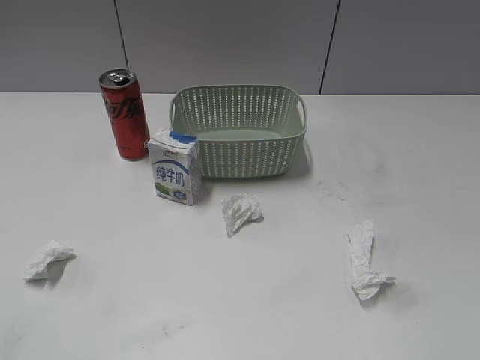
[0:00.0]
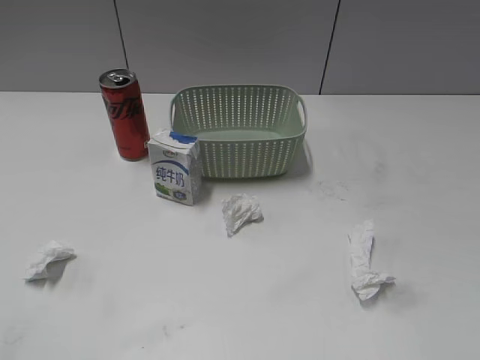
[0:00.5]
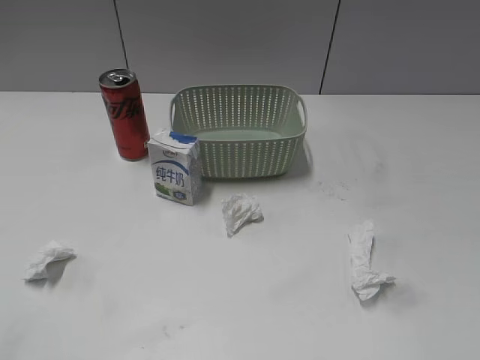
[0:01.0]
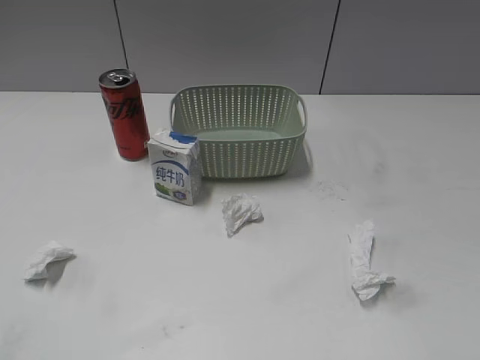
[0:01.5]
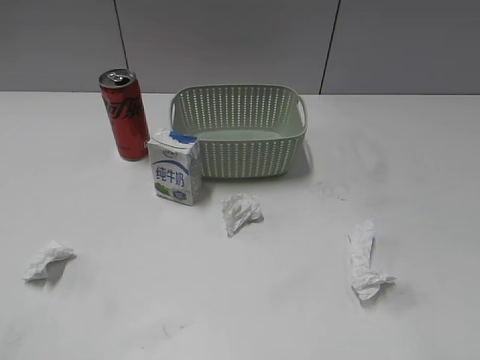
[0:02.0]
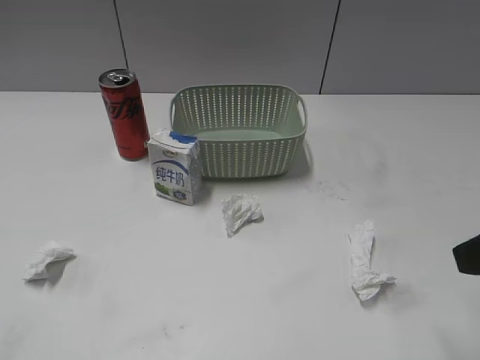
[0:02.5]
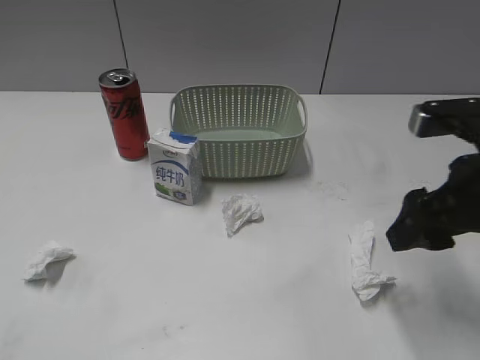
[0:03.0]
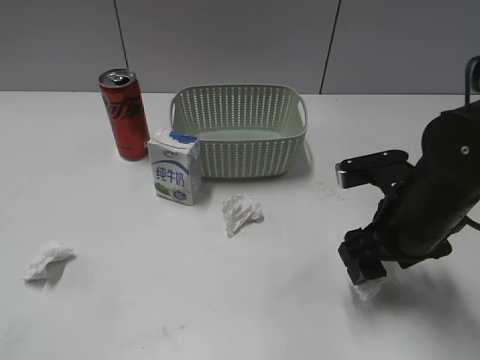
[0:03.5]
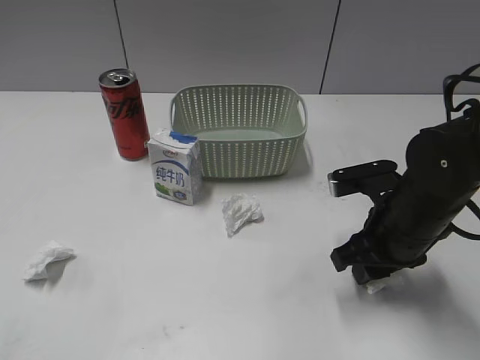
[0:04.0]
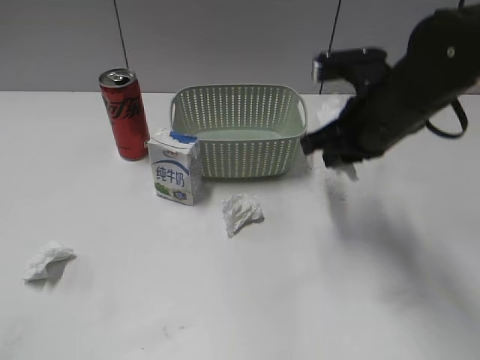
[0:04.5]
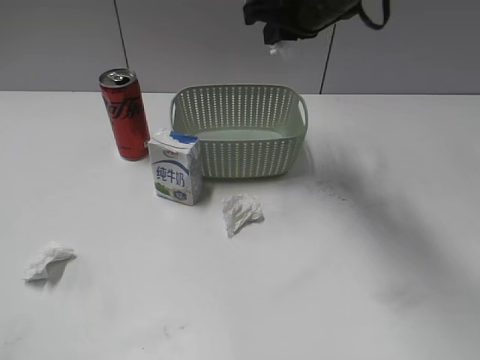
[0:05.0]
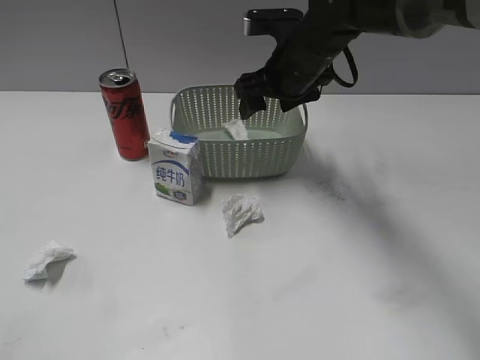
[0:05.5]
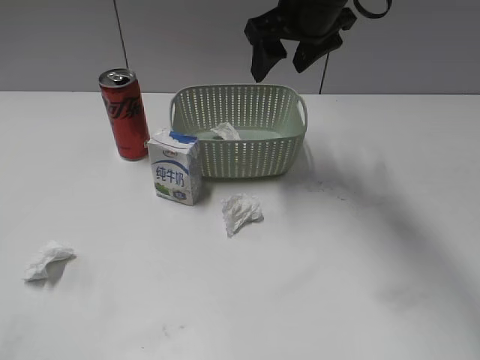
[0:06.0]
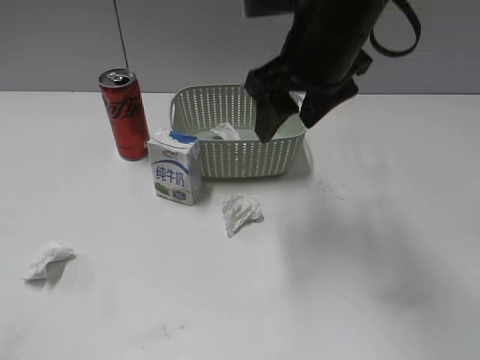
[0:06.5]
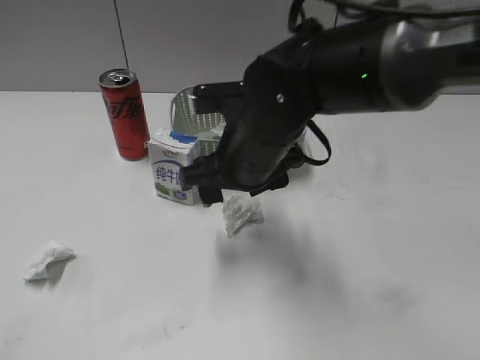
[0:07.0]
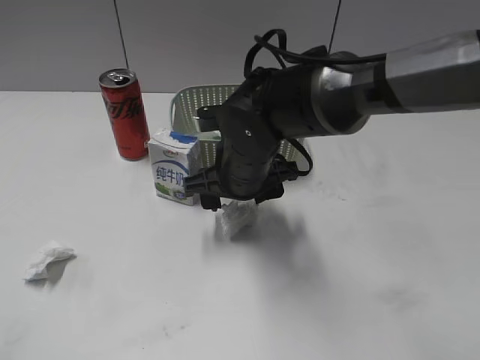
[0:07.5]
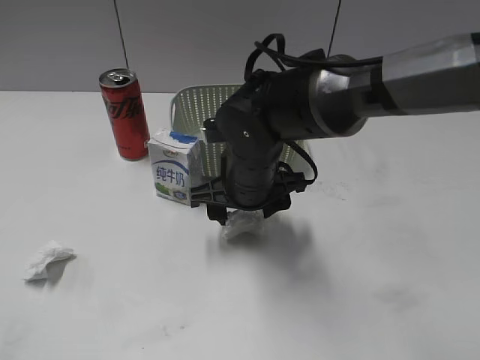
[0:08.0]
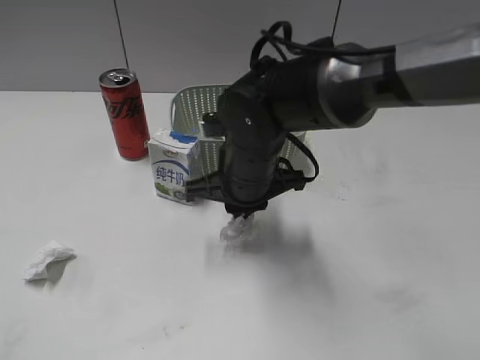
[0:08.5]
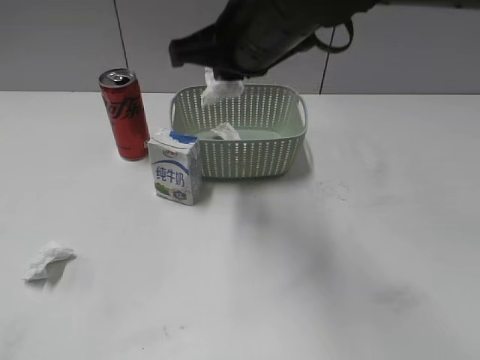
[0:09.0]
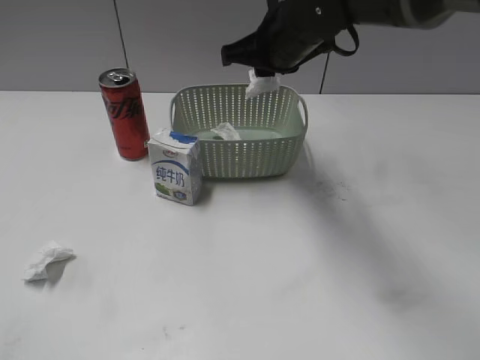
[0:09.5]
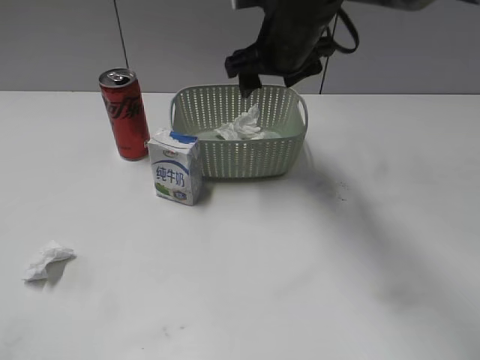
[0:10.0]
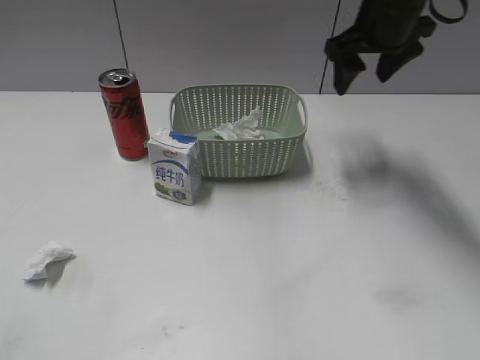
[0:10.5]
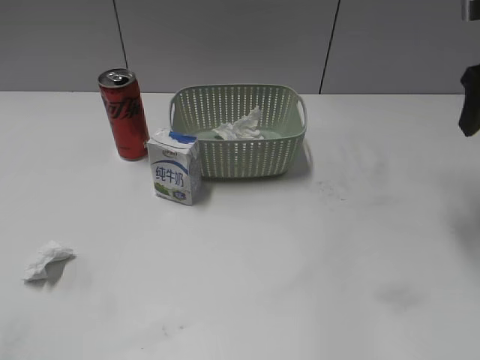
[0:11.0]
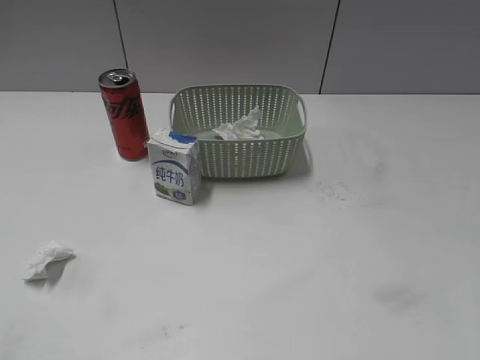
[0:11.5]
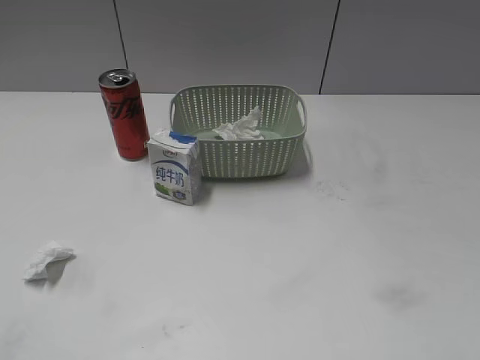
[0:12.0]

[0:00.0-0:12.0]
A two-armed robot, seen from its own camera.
Step, 0:02.5 to 0:04.0: Grasp the waste paper with right gripper.
Step, 0:04.5 to 0:05.5: Place the waste paper in the basket with right gripper.
Step, 0:06.0 to 0:08.0: Grasp the waste paper with right gripper.
Step, 0:08.5 to 0:10.0: Place the waste paper in the basket with right gripper.
0:02.0 to 0:04.0: The right gripper travels downward, forward and to the left by some 30 cm, and closes up.
0:04.0 to 0:06.0: The right gripper goes some 25 cm upward, forward and to the left, and opens.
0:06.0 to 0:08.0: The right gripper moves downward and backward, approximately 20 cm.
0:08.0 to 0:10.0: The right gripper heads upward, forward and to the right, covering about 20 cm, and closes, then opens again.
0:10.0 to 0:12.0: The right gripper heads backward and to the right, covering roughly 40 cm.

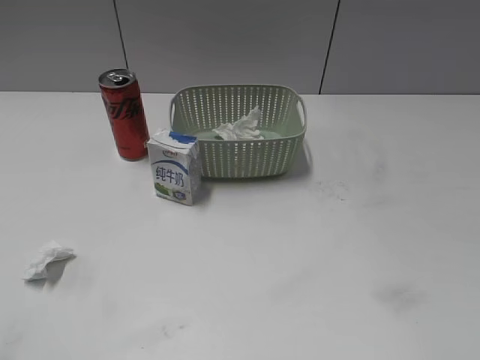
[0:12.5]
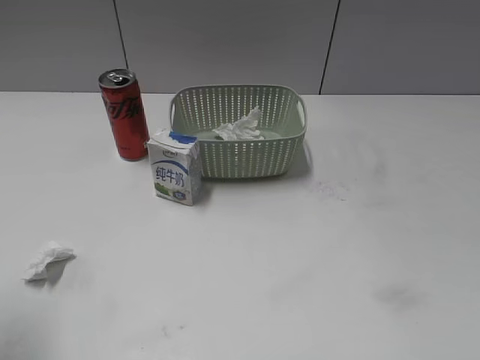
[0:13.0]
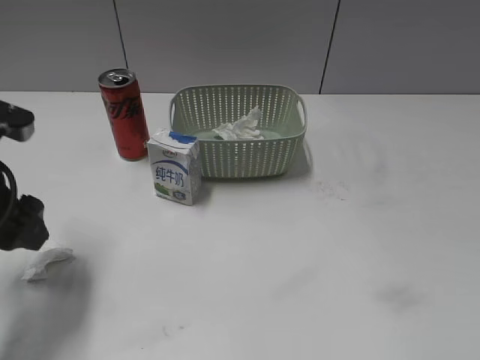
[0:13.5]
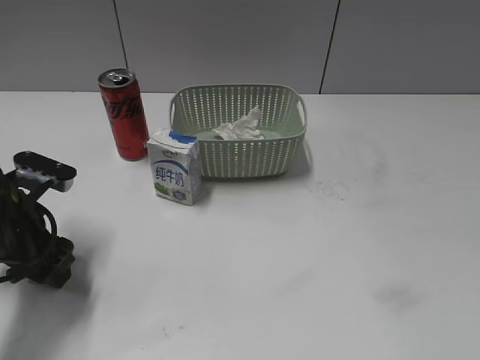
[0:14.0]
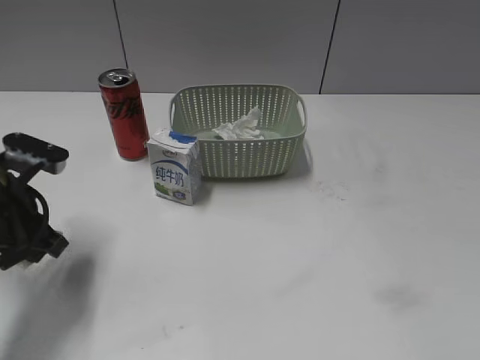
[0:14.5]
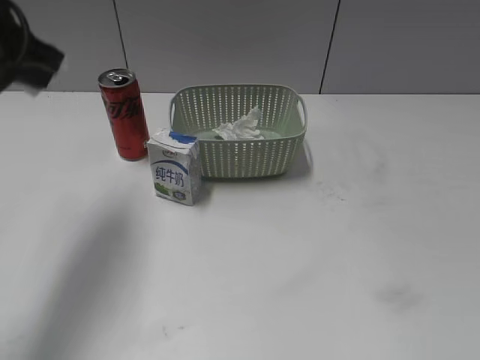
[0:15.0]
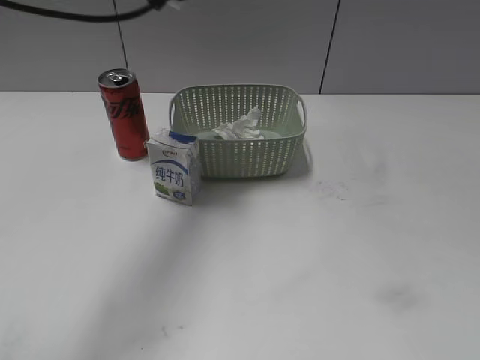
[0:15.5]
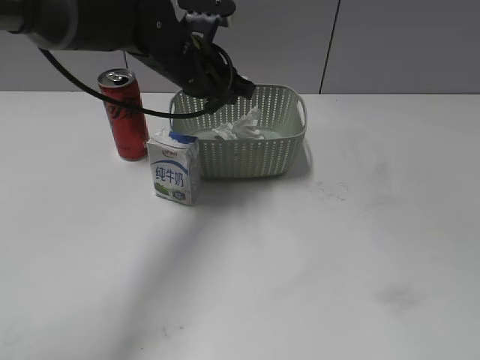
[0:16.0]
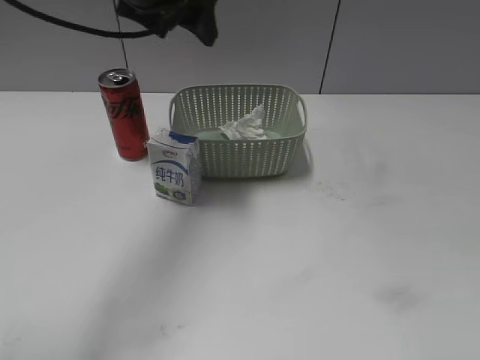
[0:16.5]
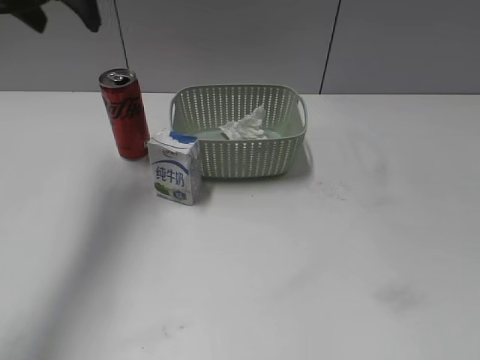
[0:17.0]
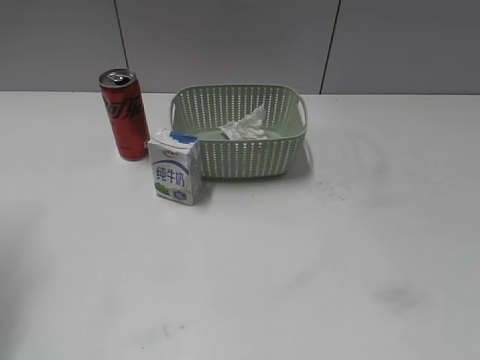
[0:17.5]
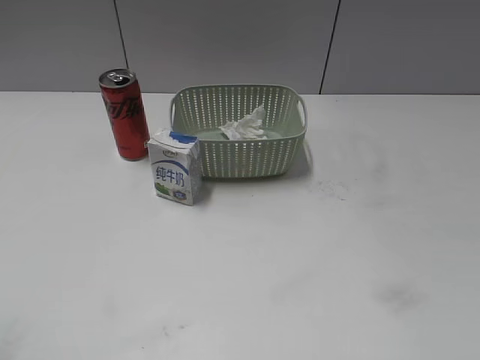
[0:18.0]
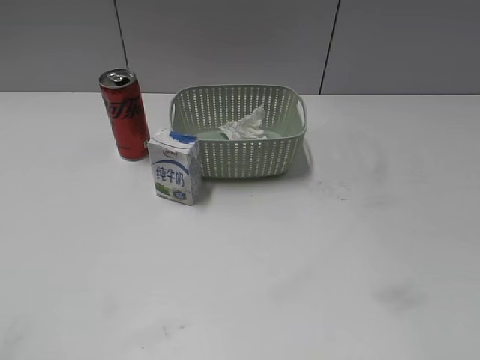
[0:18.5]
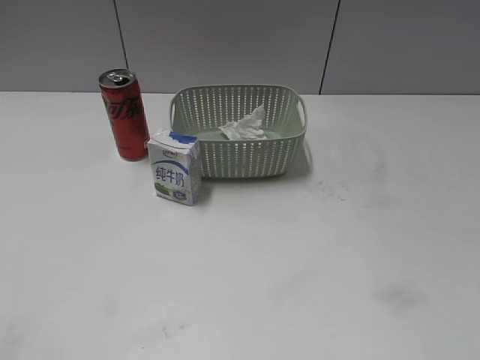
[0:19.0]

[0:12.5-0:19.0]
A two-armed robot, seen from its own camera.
Step, 0:12.5 to 0:14.5: Grasp the waste paper with left gripper.
Step, 0:15.0 to 0:16.5: Place the waste paper in the basket with left gripper.
0:12.5 to 0:14.5: The left gripper moves forward and downward, roughly 25 cm, and closes up.
0:14.5 to 0:17.0: The left gripper goes up and down, approximately 20 cm each way, reversing 2 times, and opens.
0:17.0 to 0:19.0: The left gripper travels backward by some 35 cm.

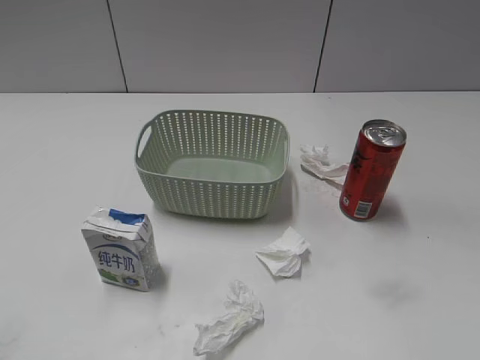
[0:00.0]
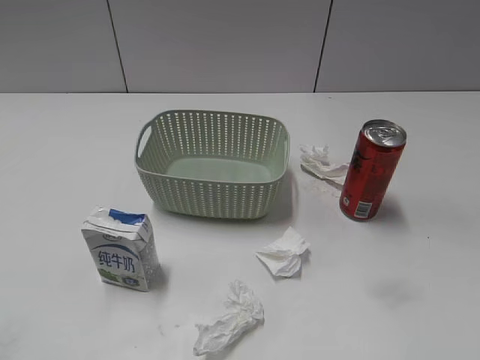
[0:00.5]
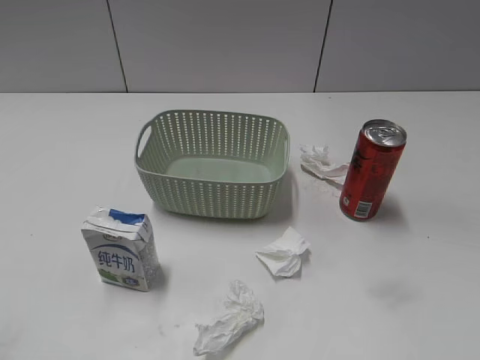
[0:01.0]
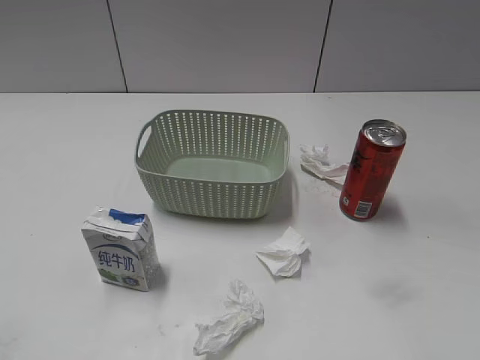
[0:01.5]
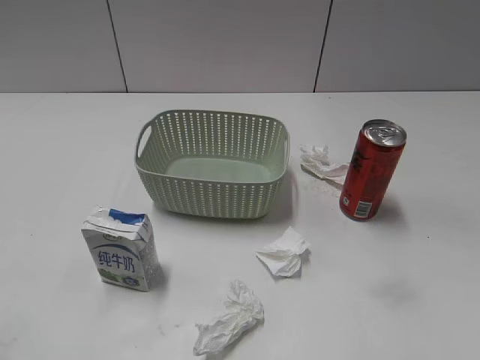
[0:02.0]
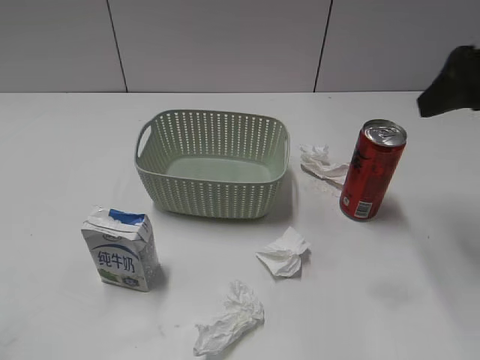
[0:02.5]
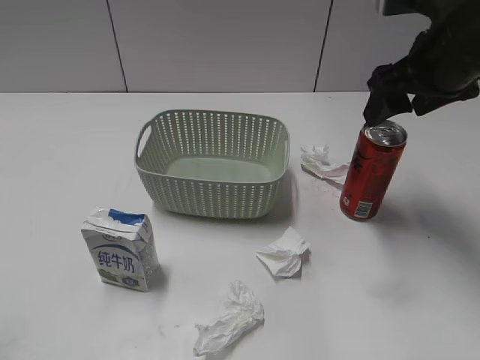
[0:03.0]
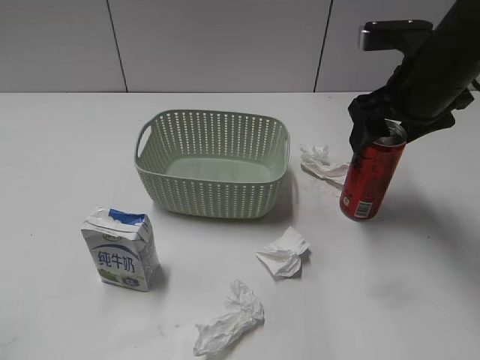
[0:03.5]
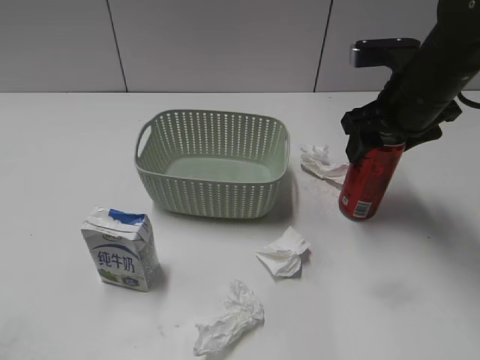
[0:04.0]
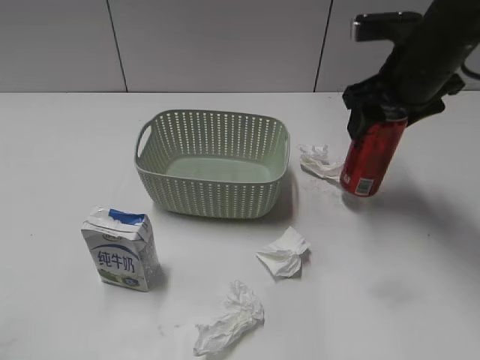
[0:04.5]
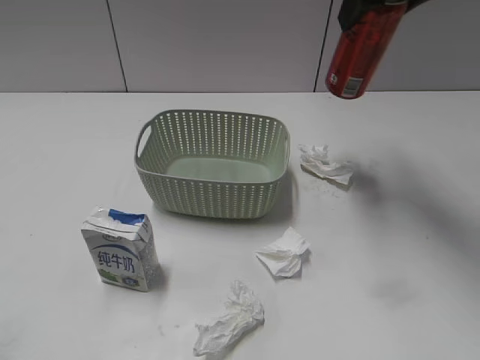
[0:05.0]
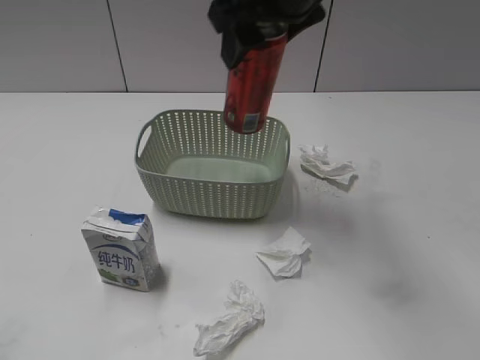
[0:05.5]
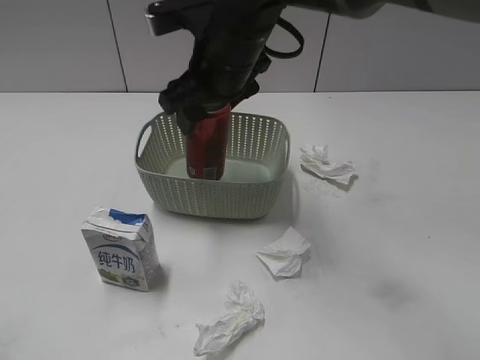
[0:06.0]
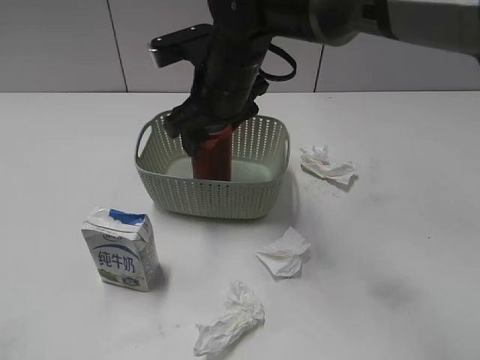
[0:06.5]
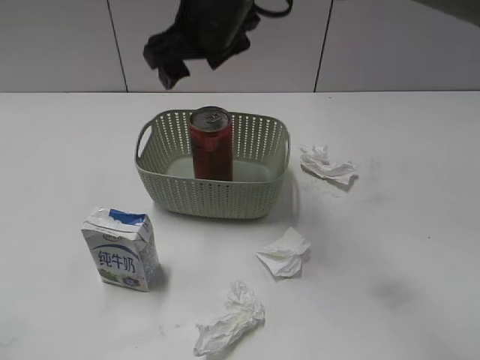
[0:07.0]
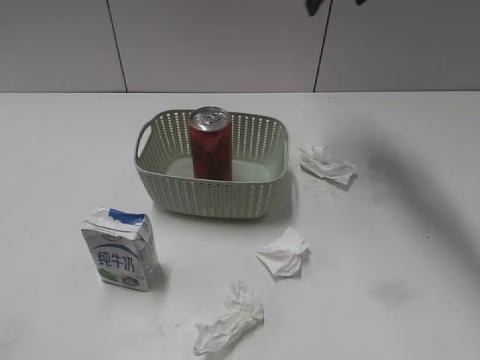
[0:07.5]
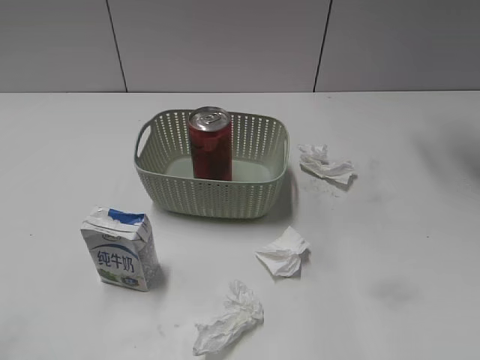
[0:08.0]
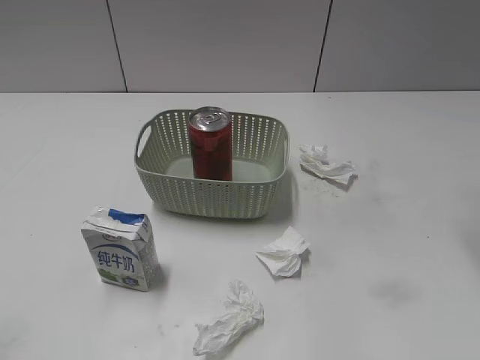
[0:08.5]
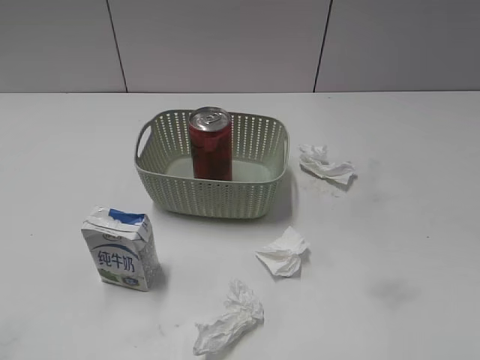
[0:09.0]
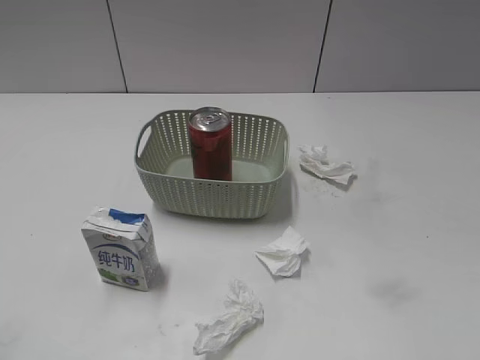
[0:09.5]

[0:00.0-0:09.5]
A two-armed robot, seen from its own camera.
Step, 0:02.5 to 0:04.0: Grasp the cola can with right gripper.
Step, 0:04.5 to 0:06.5: Place the cola can in the basket with right gripper.
0:02.0 to 0:04.0: The right gripper heads forward, downward and to the left, covering approximately 25 cm, and opens, then closes again.
0:04.0 to 0:05.5: The right gripper is displaced to the left and upward by some 20 cm.
0:05.5 to 0:07.5: The right gripper shifts roughly 15 cm forward and to the right, and opens.
0:07.5 to 0:09.5: The right gripper moves backward and to the right, some 50 cm.
